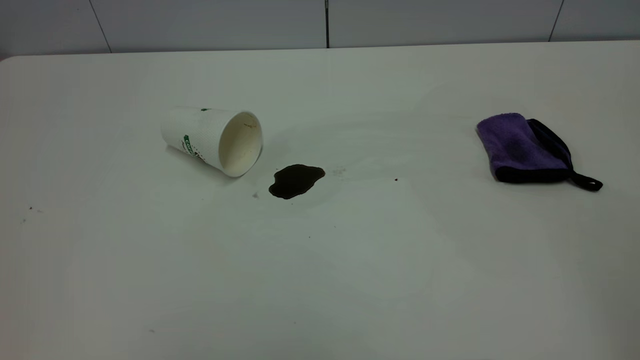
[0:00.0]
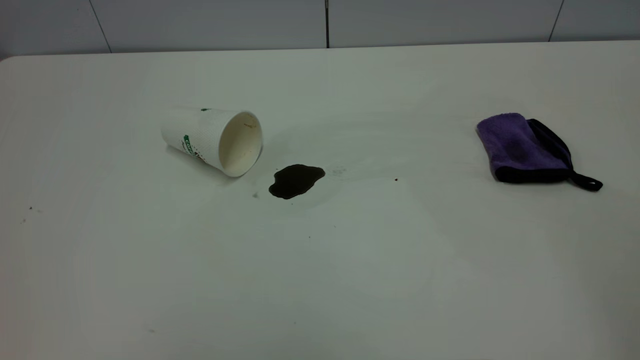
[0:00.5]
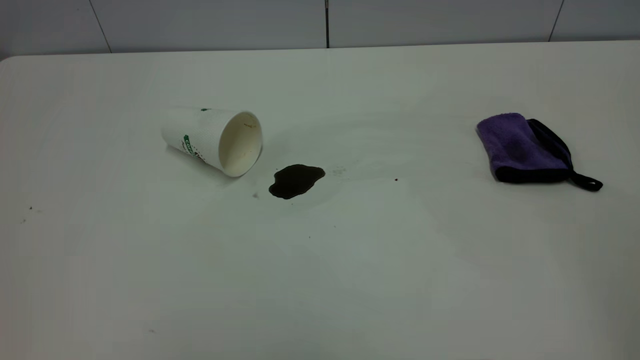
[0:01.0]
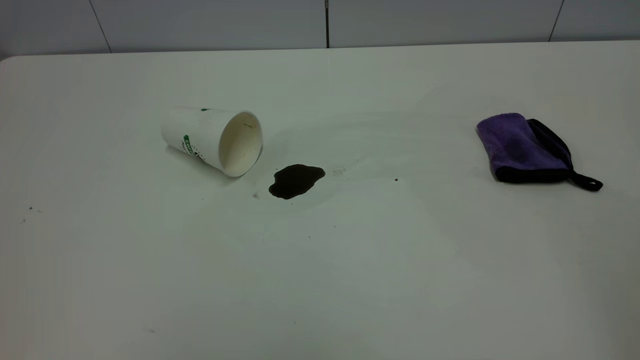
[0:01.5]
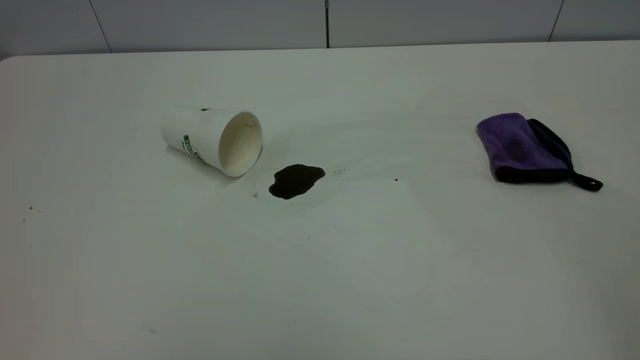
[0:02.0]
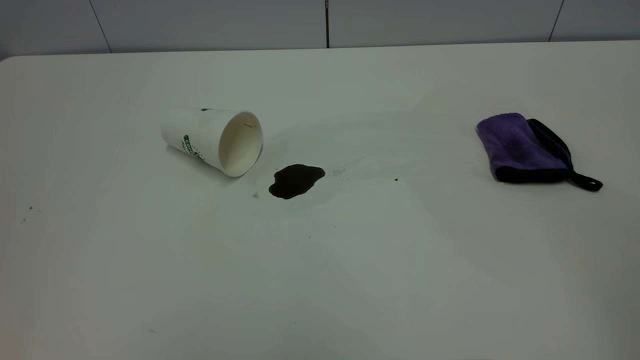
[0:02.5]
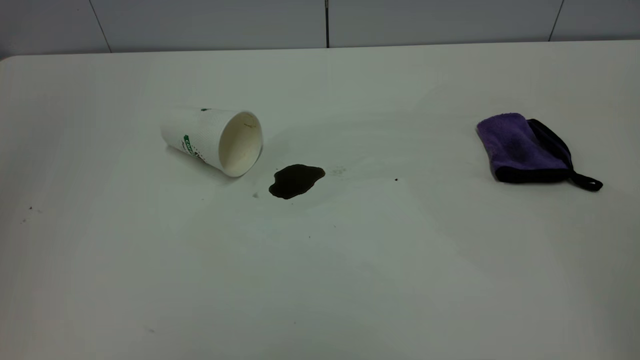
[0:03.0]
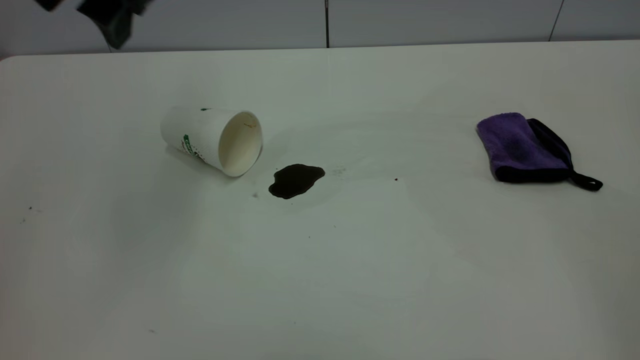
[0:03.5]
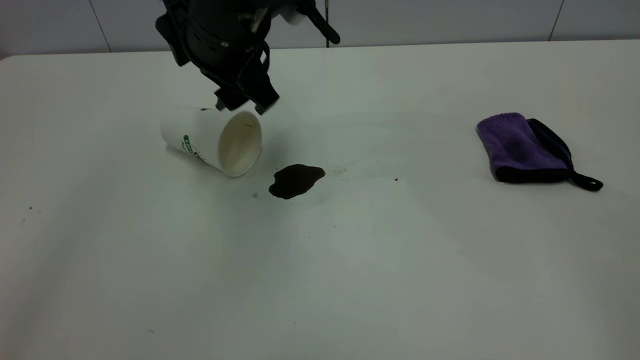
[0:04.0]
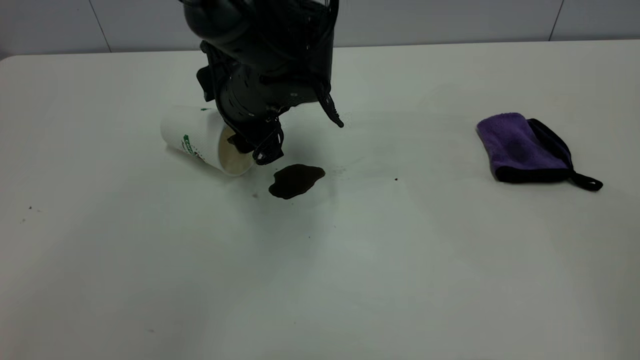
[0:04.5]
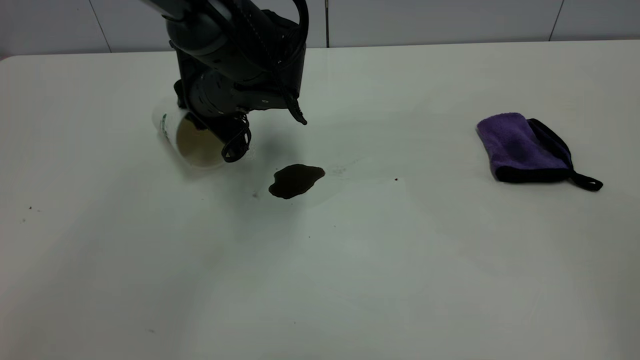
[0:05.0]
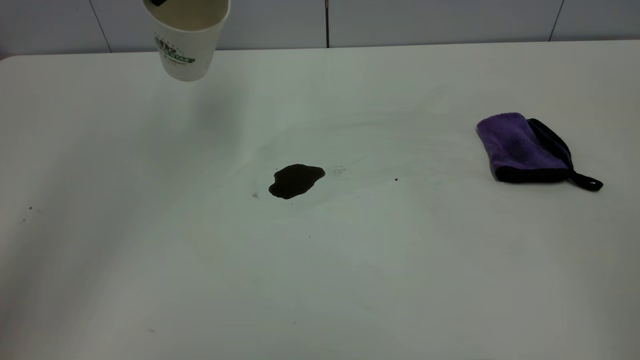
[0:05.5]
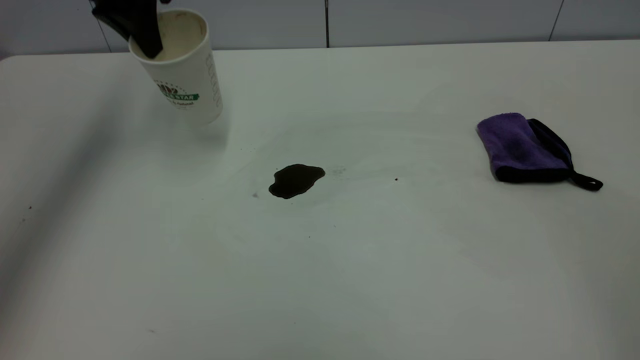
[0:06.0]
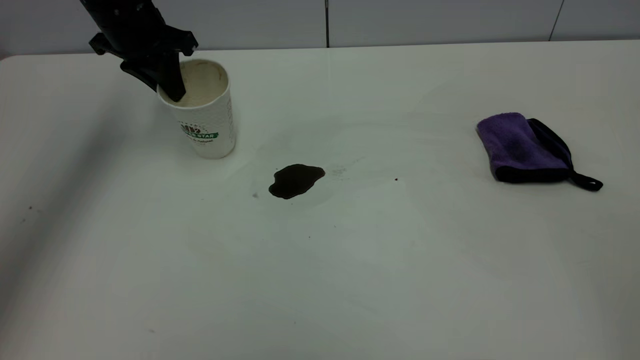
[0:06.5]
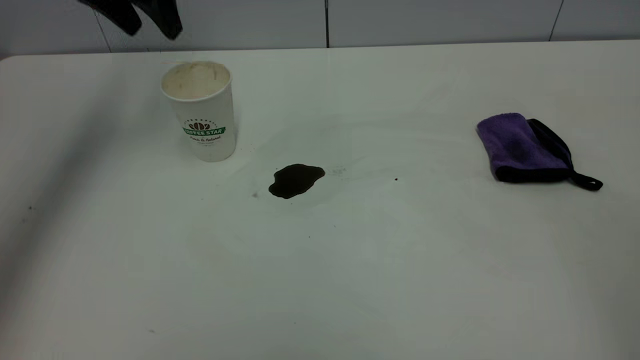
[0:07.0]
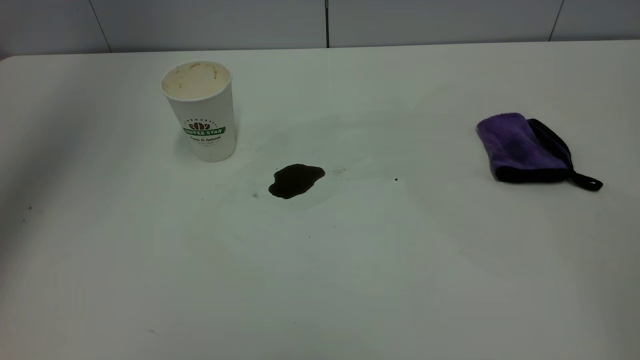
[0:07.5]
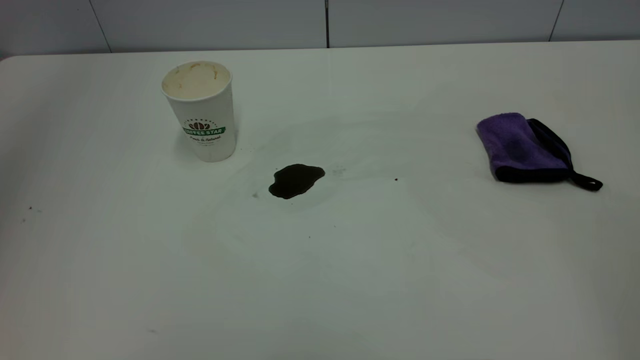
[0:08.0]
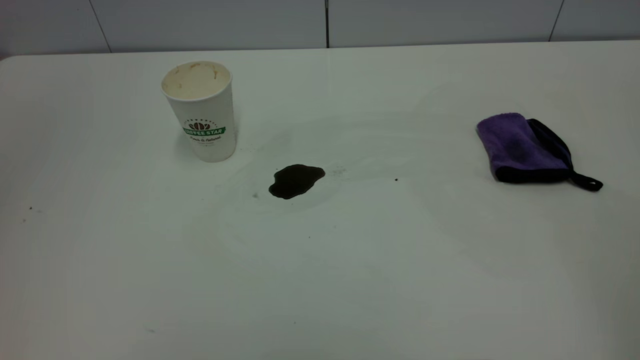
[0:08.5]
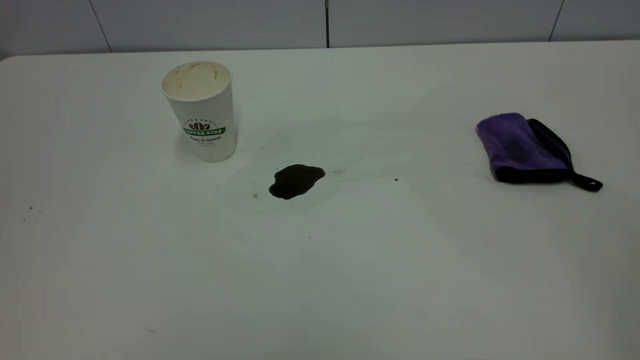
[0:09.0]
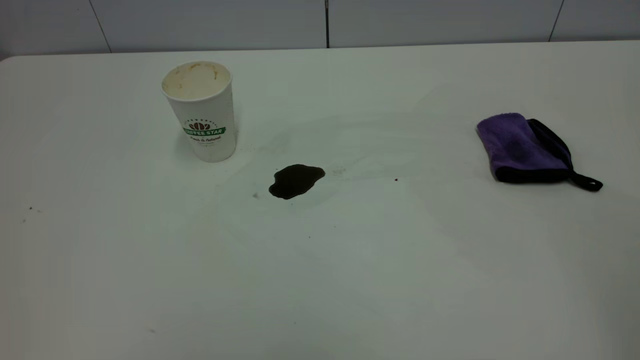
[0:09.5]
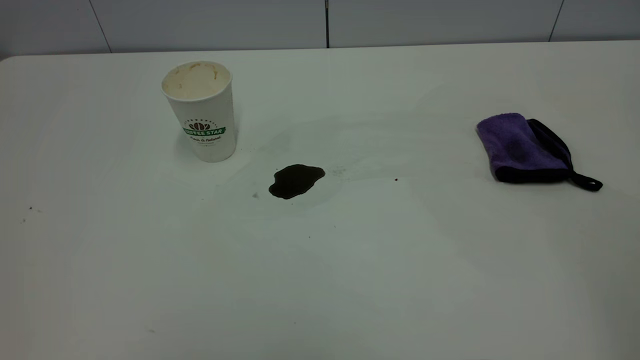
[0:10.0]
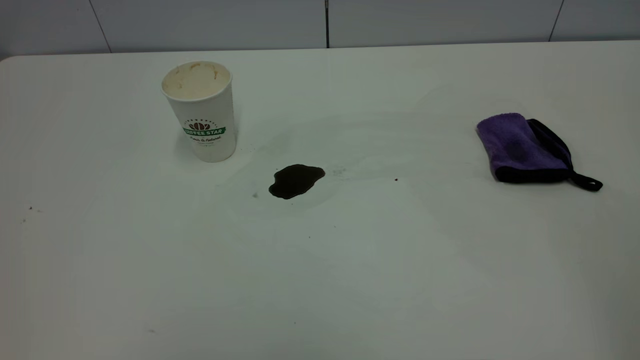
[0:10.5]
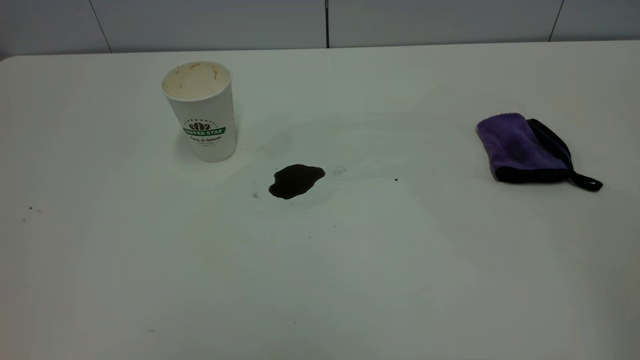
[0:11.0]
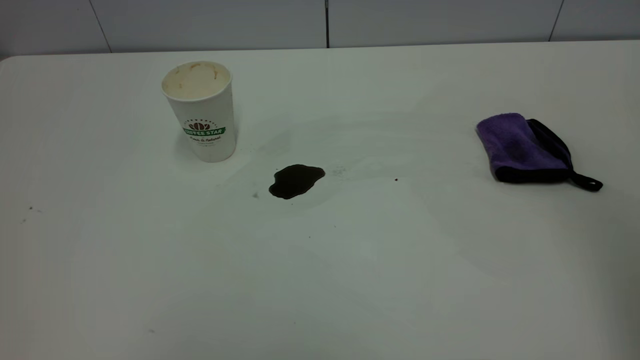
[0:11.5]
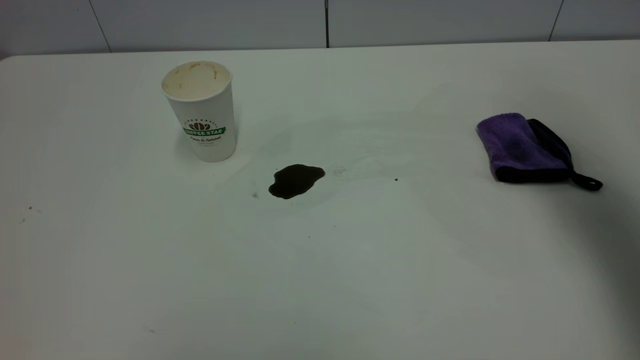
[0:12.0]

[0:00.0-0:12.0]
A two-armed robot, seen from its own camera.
Task of the whole recording: the left gripper pick up the fallen cup and place it upright, the right gripper grasp the purple rag and wipe the coffee stain on the table, the right gripper put the purple rag back in its original position.
Step, 0:00.0 to 0:06.5: Stand the paper cup upright.
0:00.0 to 0:02.0: Both grippers stay about where they are.
0:02.0 to 0:04.0: The left gripper travels forward, to the right and downward by roughly 50 cm.
0:04.0 to 0:06.0: The left gripper goes up and down, about 20 cm each way, reversing 2 times, and closes.
0:06.0 to 0:08.0: The left gripper moves upward and backward, approximately 35 cm, and opens up.
0:10.0 to 0:12.0: The right gripper heads forward, covering some 30 cm.

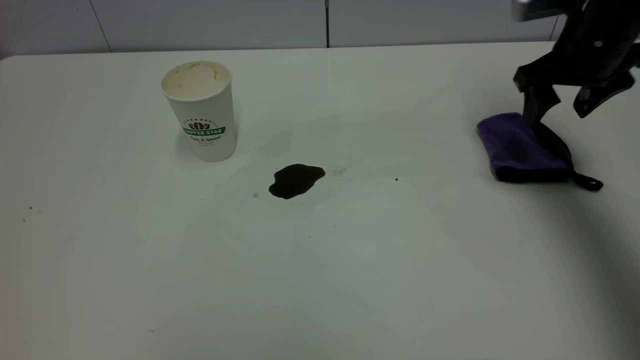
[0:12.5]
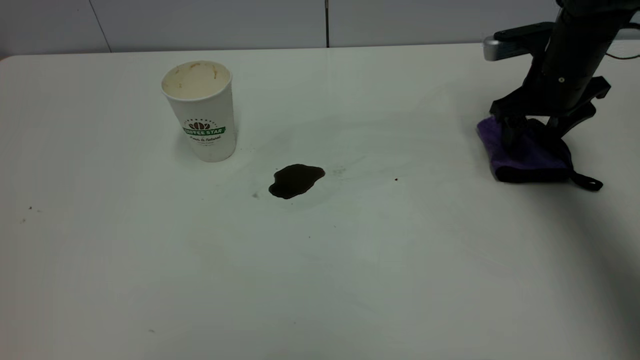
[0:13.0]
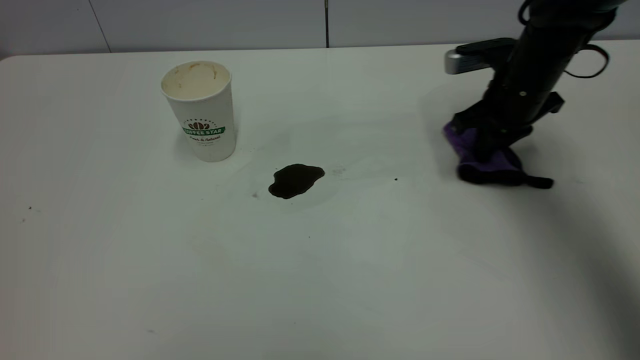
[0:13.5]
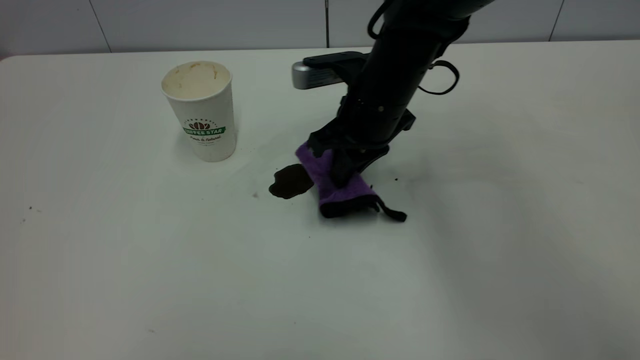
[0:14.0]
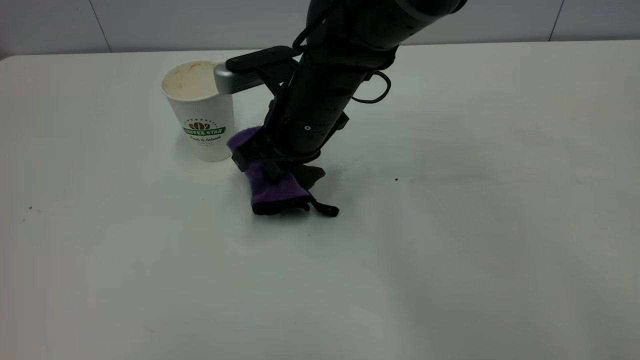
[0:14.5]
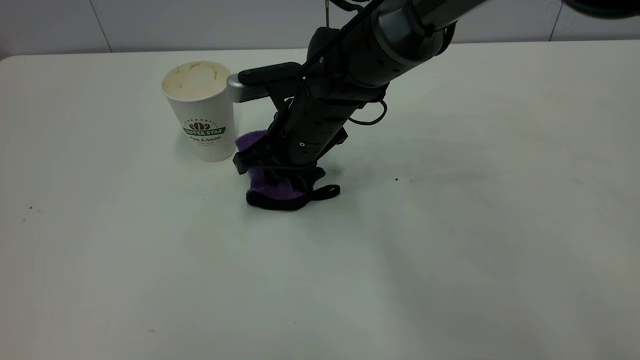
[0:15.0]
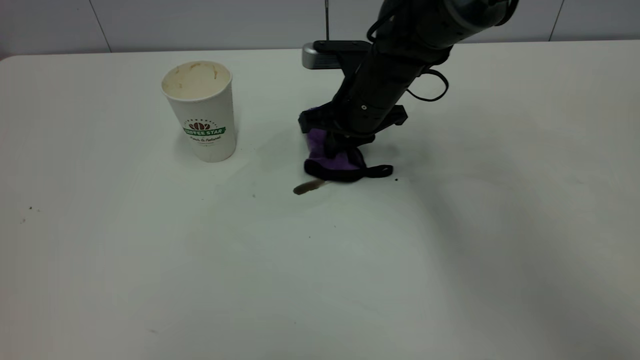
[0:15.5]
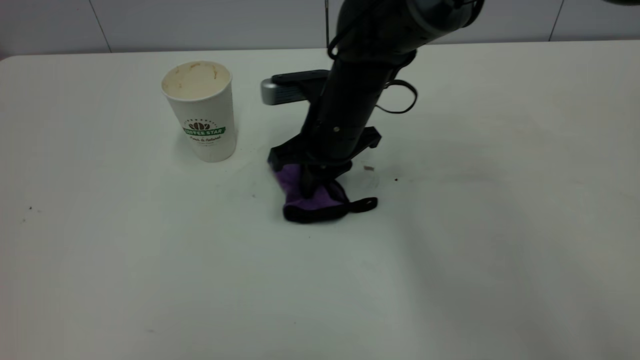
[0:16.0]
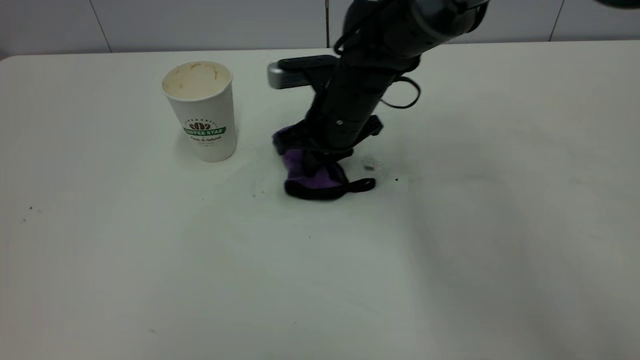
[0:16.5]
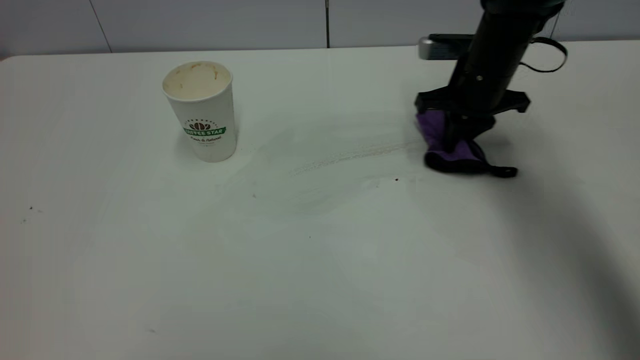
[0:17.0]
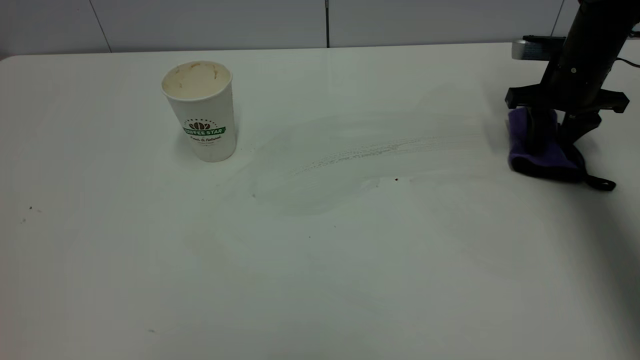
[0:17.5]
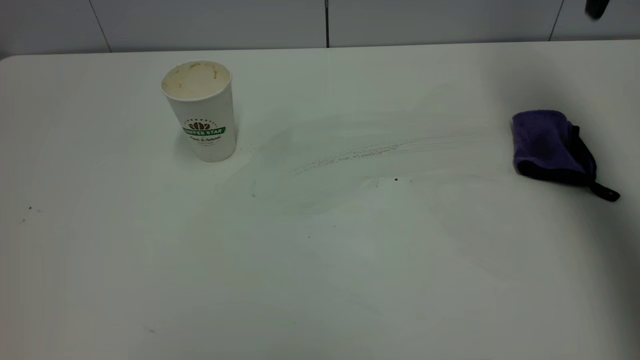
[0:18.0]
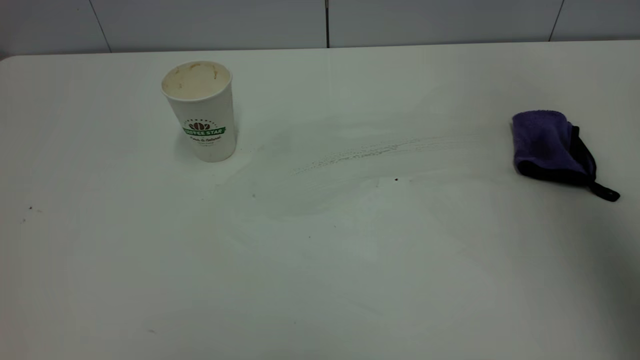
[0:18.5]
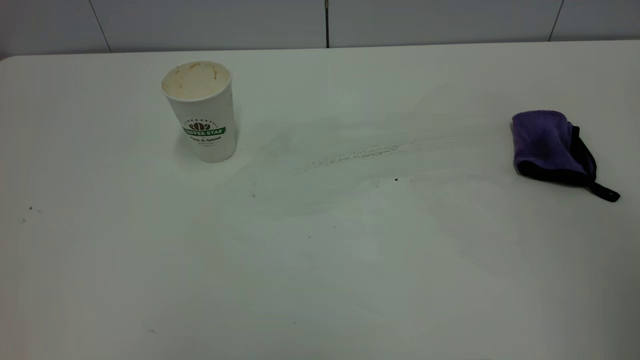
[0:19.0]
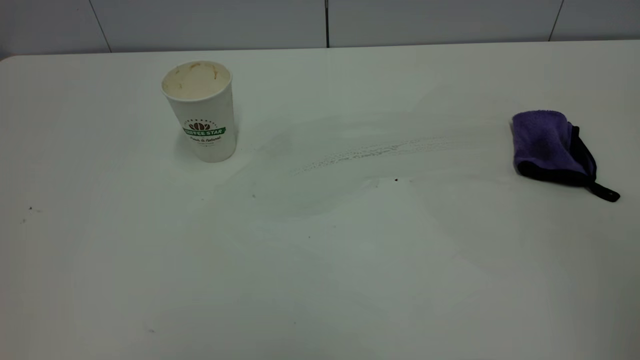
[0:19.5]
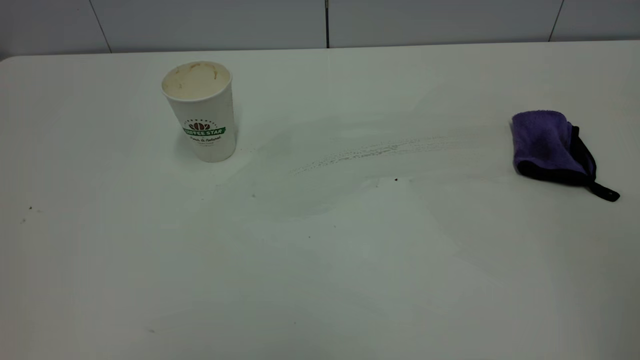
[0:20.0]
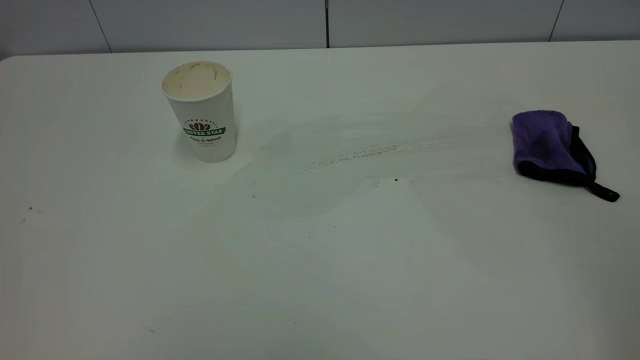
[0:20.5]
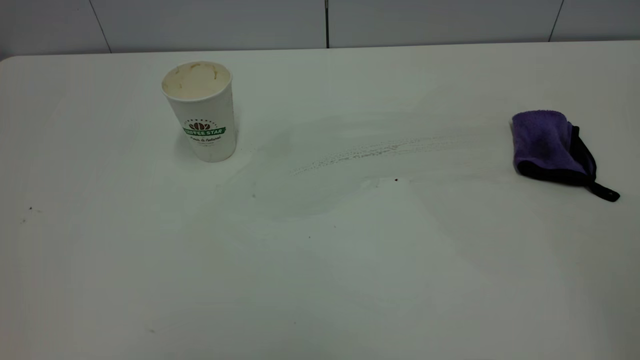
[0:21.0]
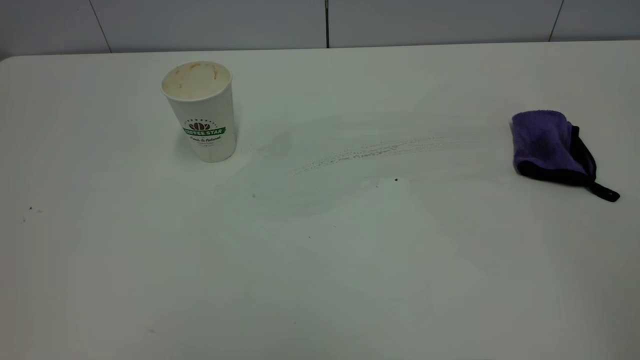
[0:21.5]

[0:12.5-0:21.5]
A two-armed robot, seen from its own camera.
Task of the whole recording: the left gripper pick up the fallen cup and place it upright, the right gripper grasp the purple rag and wipe the coffee stain on the table, the right gripper put the purple rag back in its original position.
Step, 0:12.5 to 0:17.5: Wipe the stains off the table with a rag.
0:12.5 to 0:14.5: The right gripper goes some 30 cm to the left, and closes.
0:14.5 to 0:17.0: The right gripper goes left and right, about 20 cm each way, reversing 2 times.
0:17.0 to 0:19.5: The right gripper goes roughly 50 cm backward and upward, and opens.
